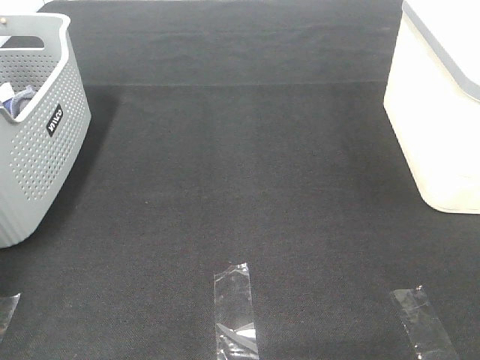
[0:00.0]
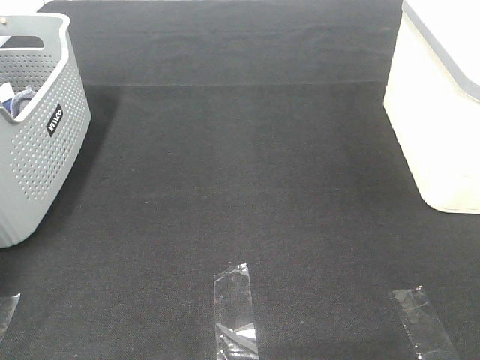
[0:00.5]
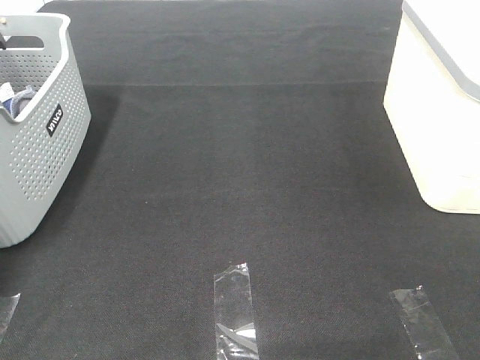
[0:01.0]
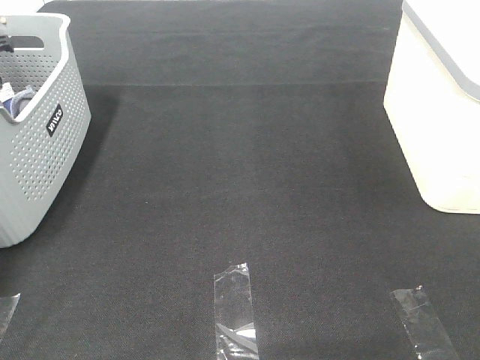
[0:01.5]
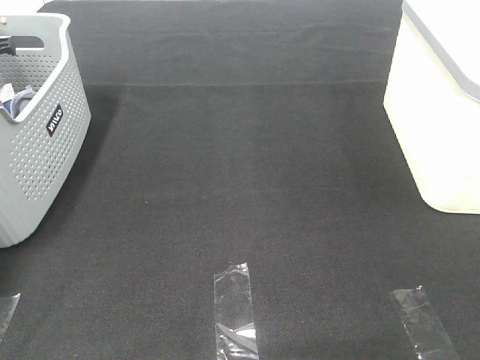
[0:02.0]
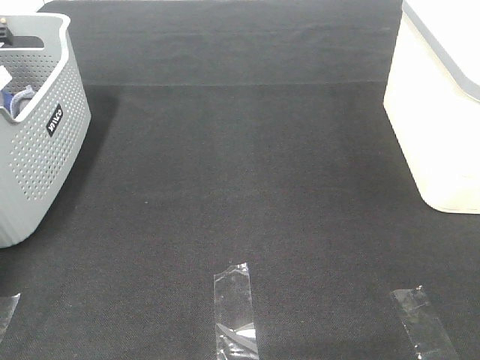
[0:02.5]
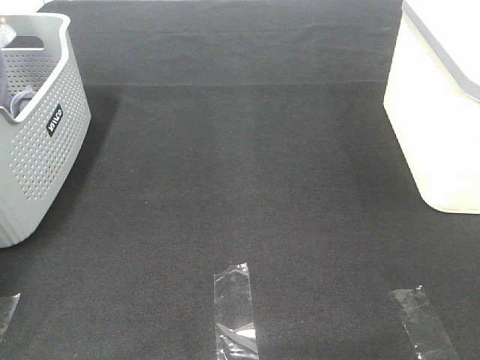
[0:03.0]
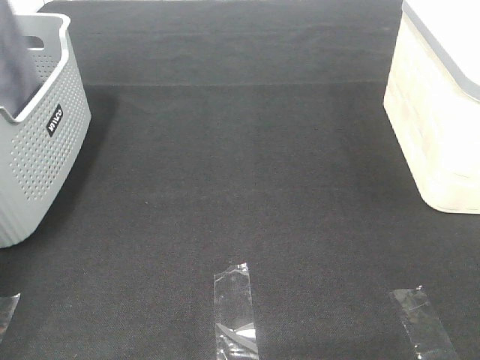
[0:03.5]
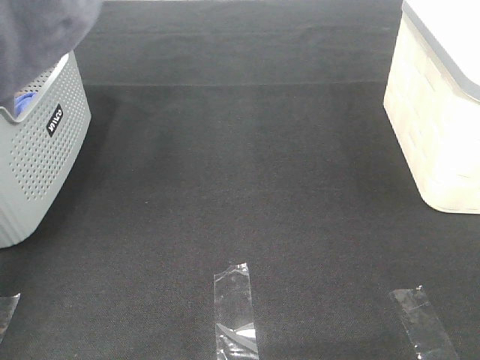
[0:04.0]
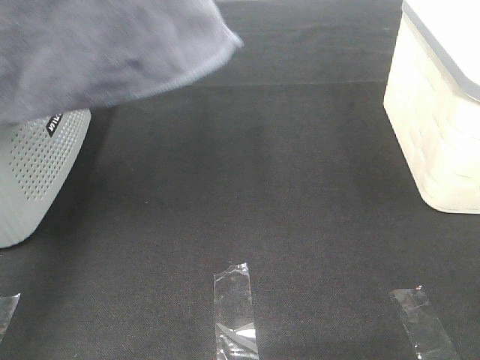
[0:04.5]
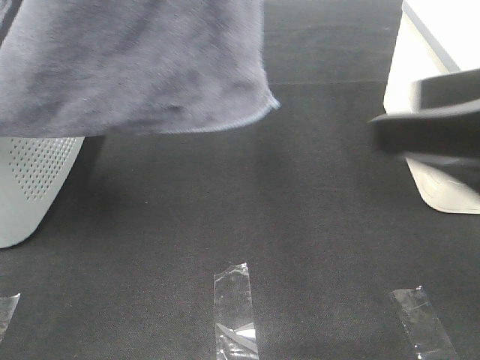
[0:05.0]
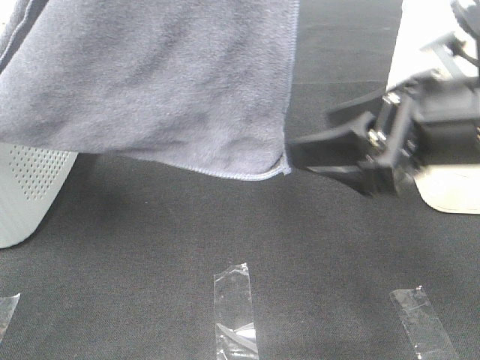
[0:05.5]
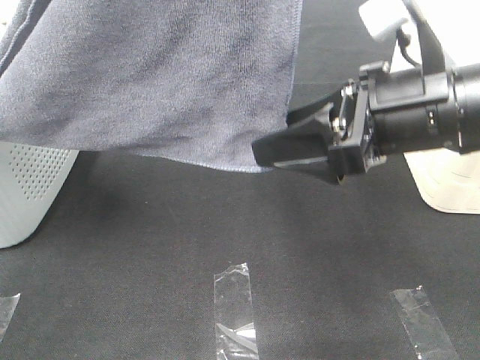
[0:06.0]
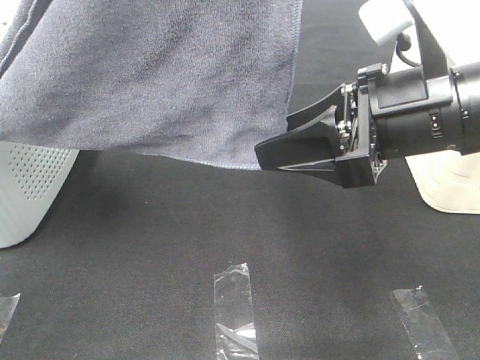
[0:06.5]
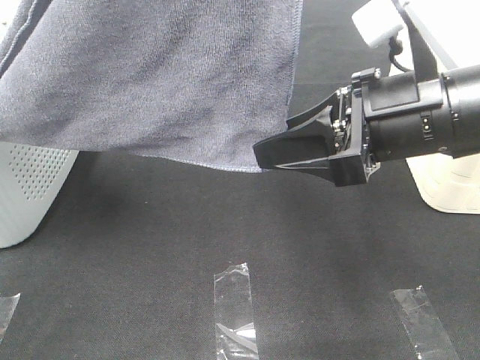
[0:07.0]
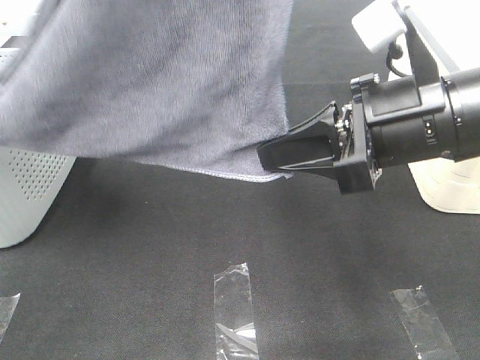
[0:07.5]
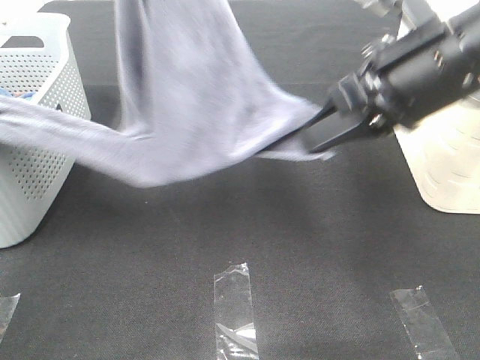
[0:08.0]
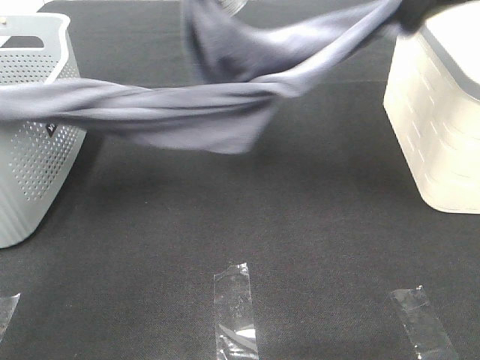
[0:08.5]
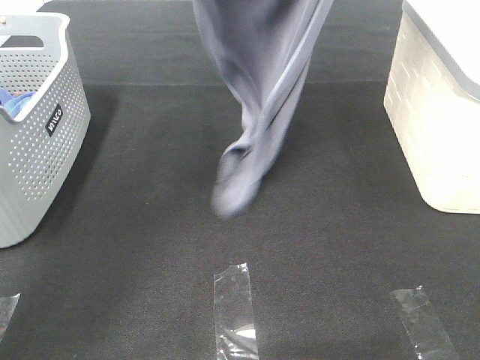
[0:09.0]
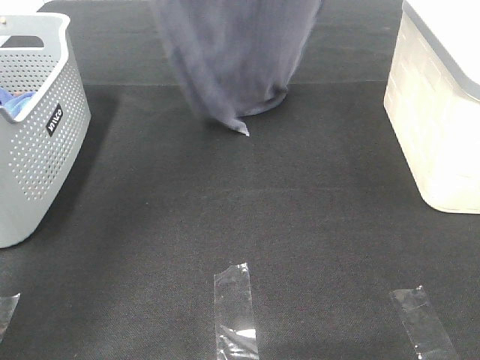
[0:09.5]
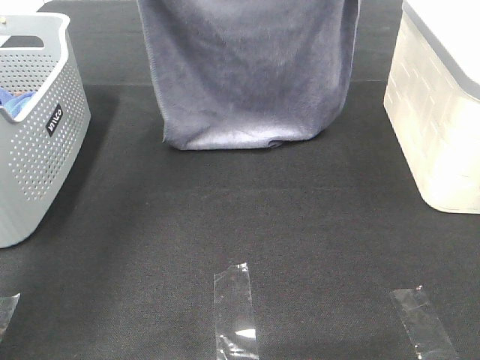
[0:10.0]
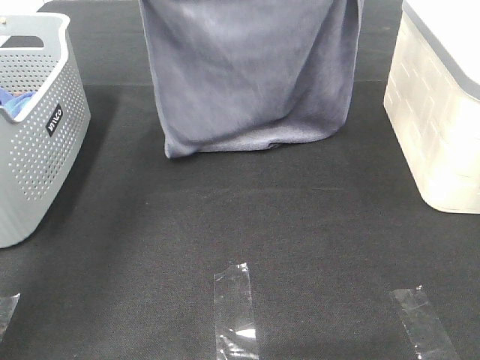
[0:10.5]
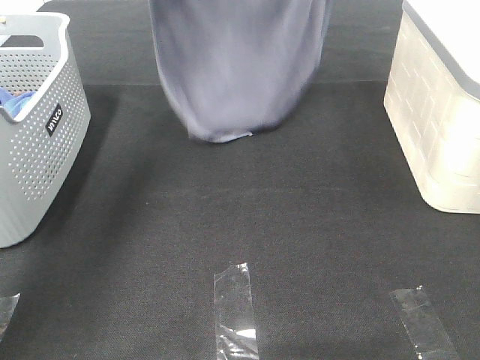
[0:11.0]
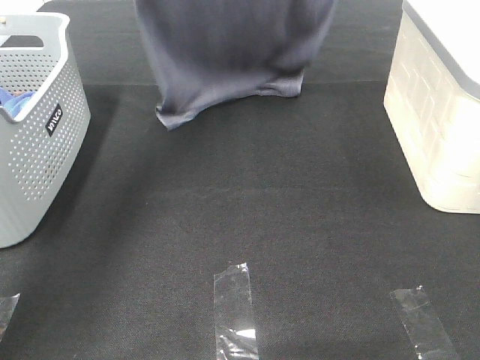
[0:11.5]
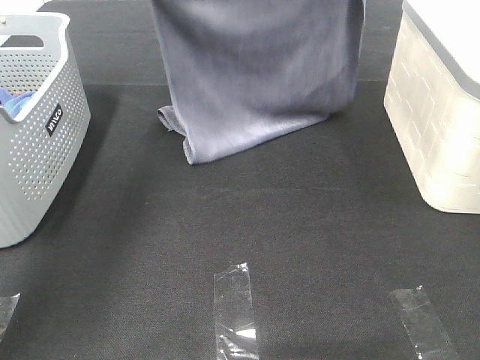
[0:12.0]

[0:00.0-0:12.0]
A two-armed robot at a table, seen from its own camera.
Task of the whole recording: Remove the towel and place it.
Step, 0:02.5 to 0:05.5: Right hand: grab a corner of the grey towel and straighten it.
Step, 0:06.0 to 0:10.5: Left hand: spread the grey towel flat on the table.
Step, 0:06.0 to 0:10.5: Right hand: spread the grey towel flat on the table.
0:02.0 to 0:04.0: The left gripper shifts approximately 40 cm upward and backward.
0:04.0 to 0:06.0: The right gripper shifts roughly 25 cm forward and to the left; the left gripper heads to the right, covering about 20 cm.
0:06.0 to 0:08.0: The right gripper changes place by about 5 cm, and closes up, while the left gripper travels forward and downward by roughly 10 cm.
0:08.0 to 0:10.0: The left gripper moves forward, downward and to the left, about 20 cm; the right gripper goes roughly 20 cm forward and upward.
0:10.0 to 0:12.0: The left gripper goes up and down, approximately 10 cm each way, reversing 2 times. Meanwhile the right gripper reaches about 5 cm upward, then returns.

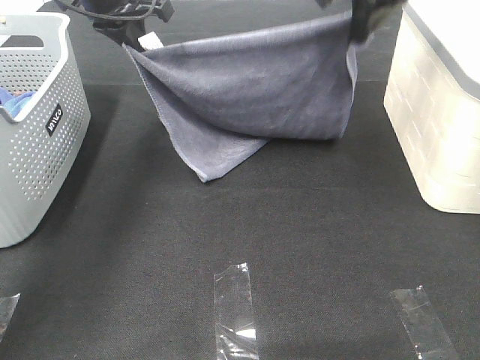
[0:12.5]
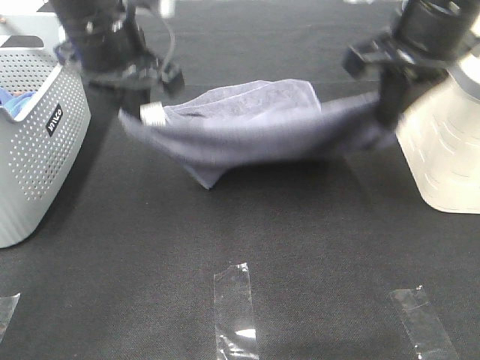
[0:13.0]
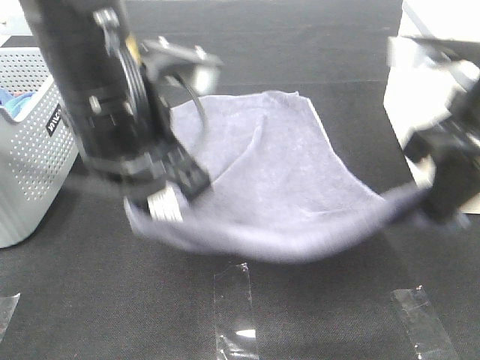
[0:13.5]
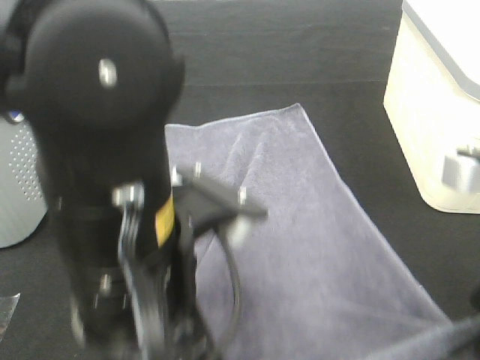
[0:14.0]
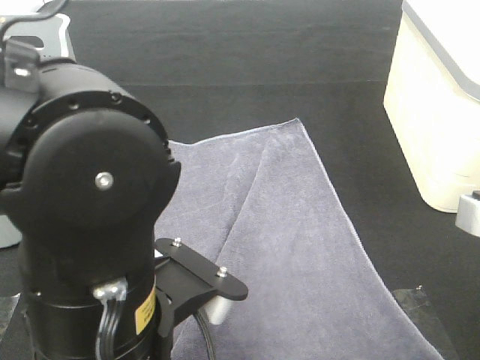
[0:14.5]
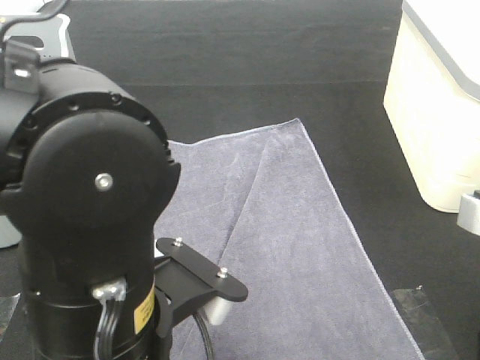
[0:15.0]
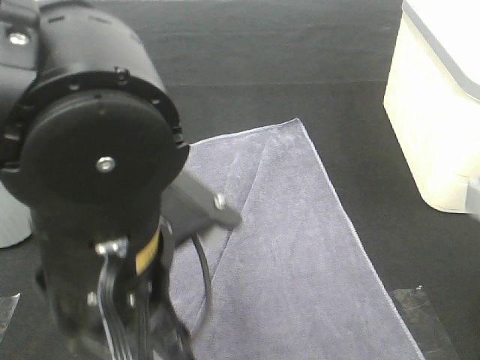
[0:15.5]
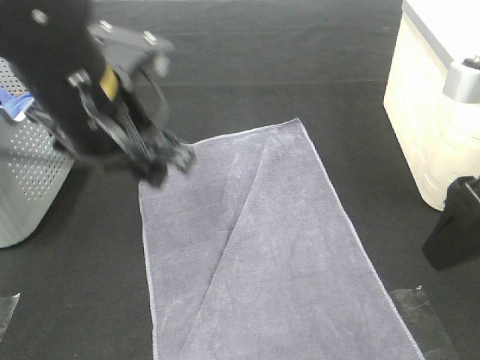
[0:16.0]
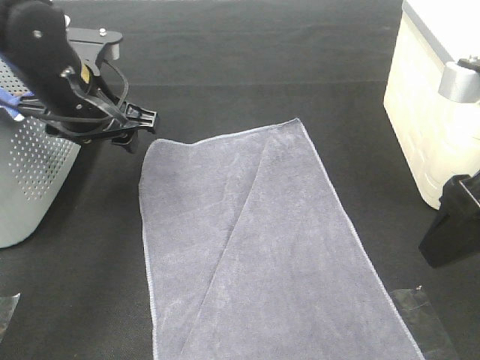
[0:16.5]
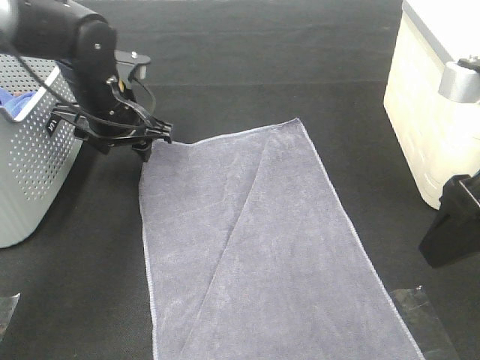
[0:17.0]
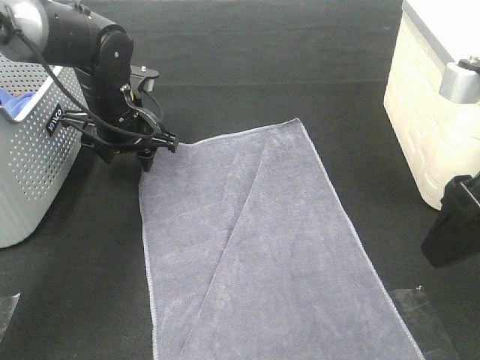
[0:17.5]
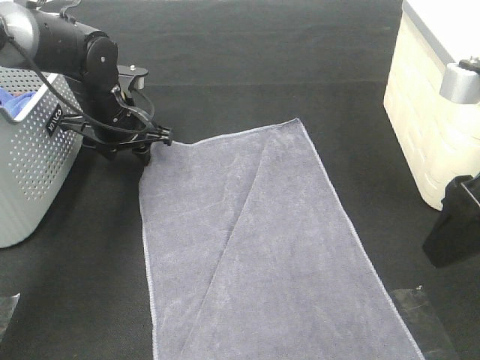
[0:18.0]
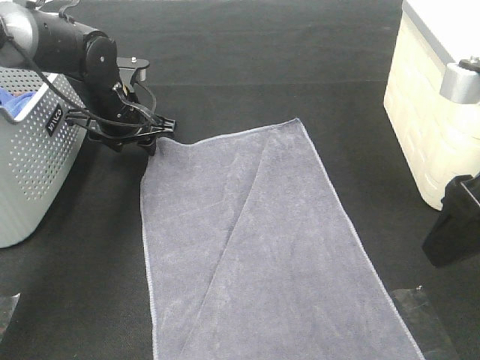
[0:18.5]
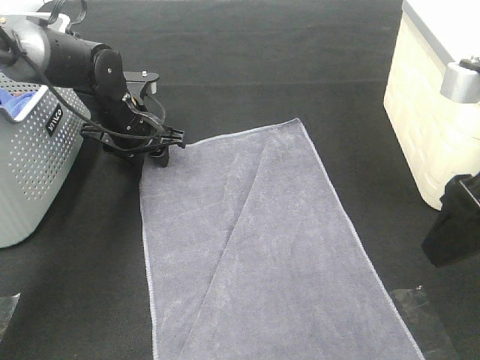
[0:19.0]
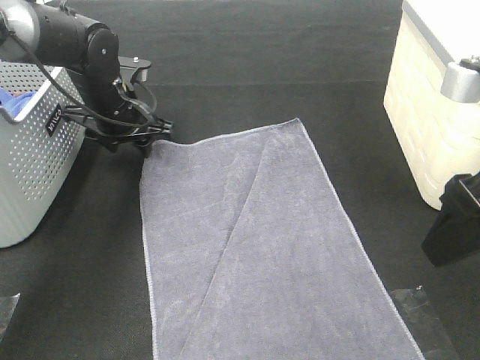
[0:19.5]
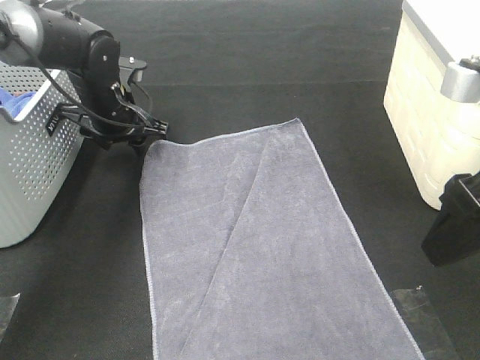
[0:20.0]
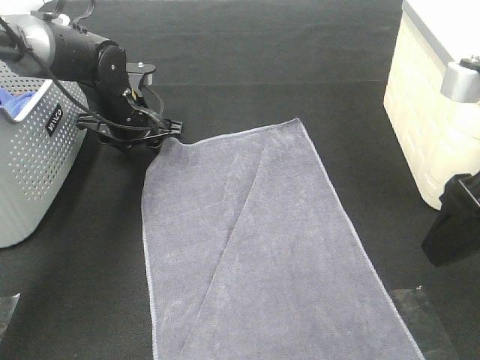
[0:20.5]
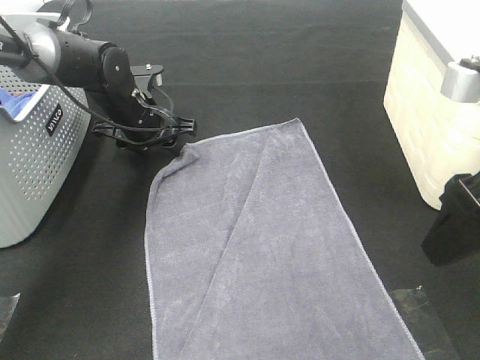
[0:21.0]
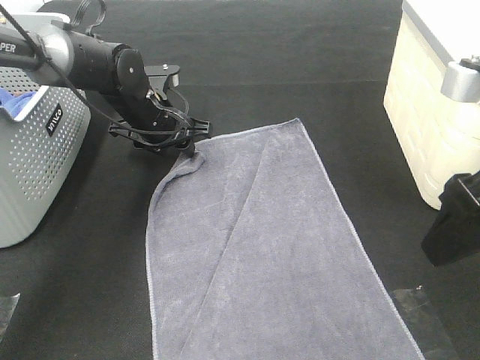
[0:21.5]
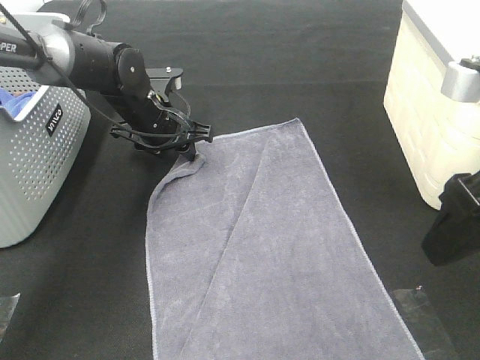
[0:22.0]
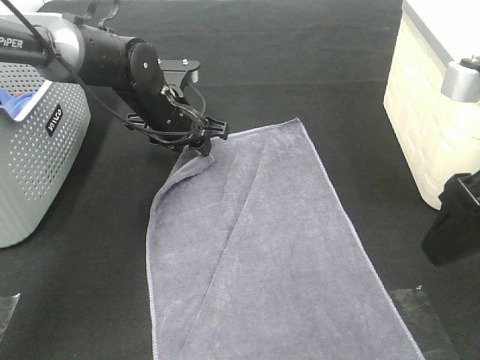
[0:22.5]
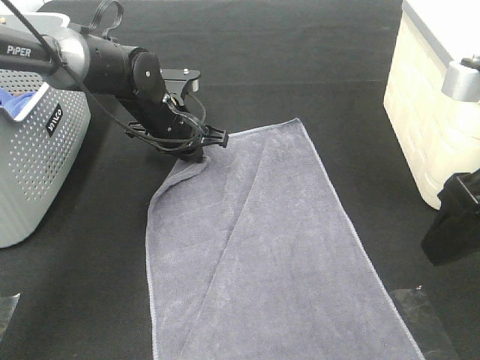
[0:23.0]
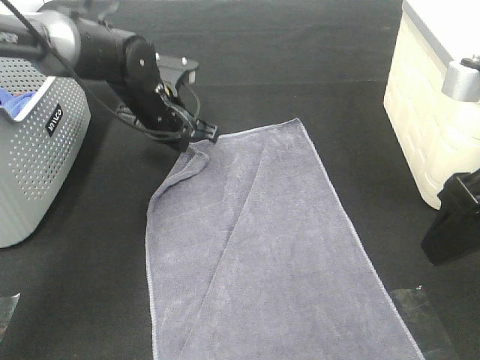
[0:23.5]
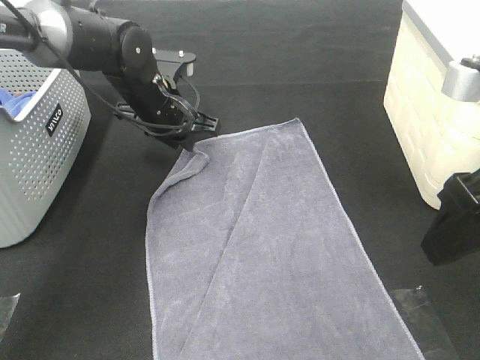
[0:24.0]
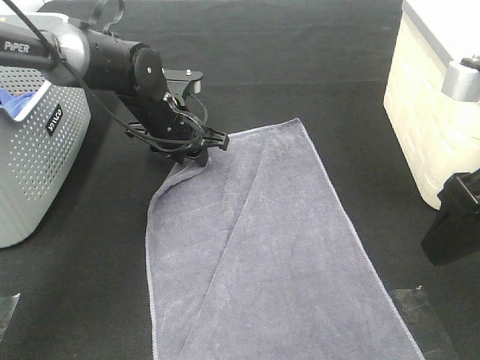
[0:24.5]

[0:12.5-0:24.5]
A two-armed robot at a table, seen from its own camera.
Task of the whole recording: Remove the towel and place it.
Step, 0:12.5 to 0:22.0: Left hand:adjust the gray towel.
Step, 0:12.5 to 0:22.0: Right hand:adjust the gray towel.
0:12.5 to 0:14.5: The two grippers go roughly 35 cm backward.
0:14.5 to 0:16.5: The left gripper shifts some 30 cm forward and to the left, and opens. Meanwhile the right gripper is displaced forward by about 5 cm, and opens its fingers.
0:16.5 to 0:18.5: The left gripper shifts roughly 10 cm forward and downward.
0:18.5 to 0:20.5: The grippers stay close to where they were, moving slightly.
0:20.5 to 0:22.5: The left gripper heads to the right, covering some 5 cm.
0:22.5 to 0:24.5: The left gripper closes, then reopens.

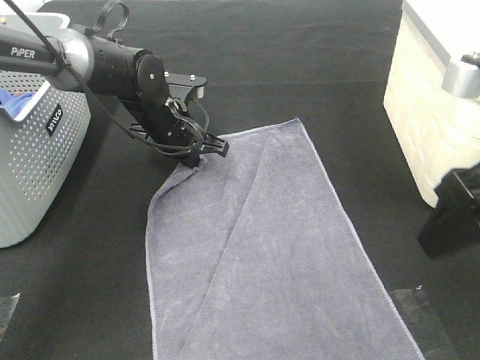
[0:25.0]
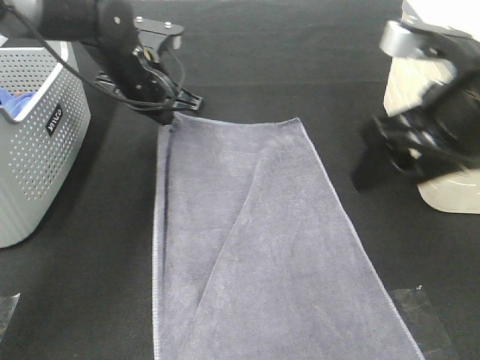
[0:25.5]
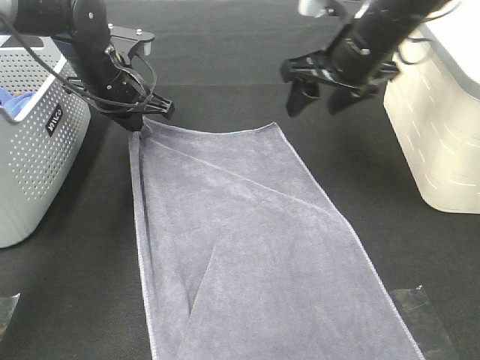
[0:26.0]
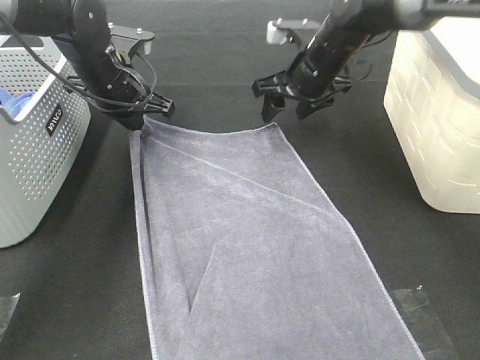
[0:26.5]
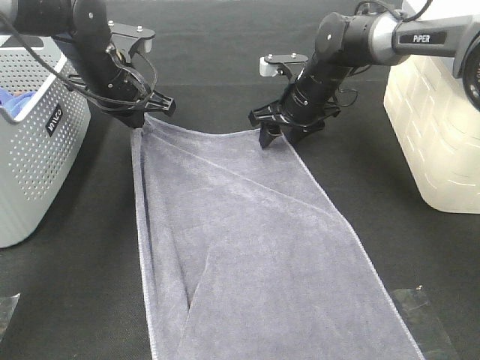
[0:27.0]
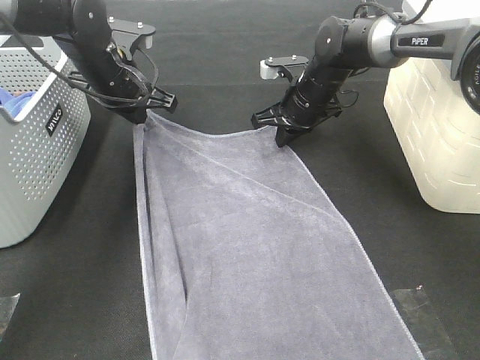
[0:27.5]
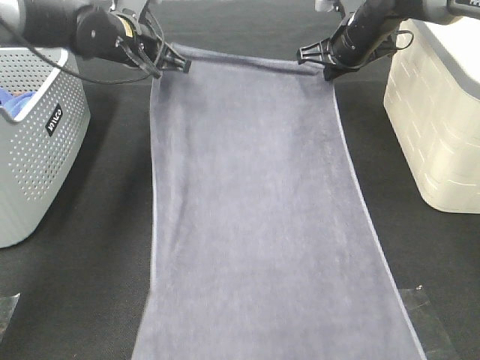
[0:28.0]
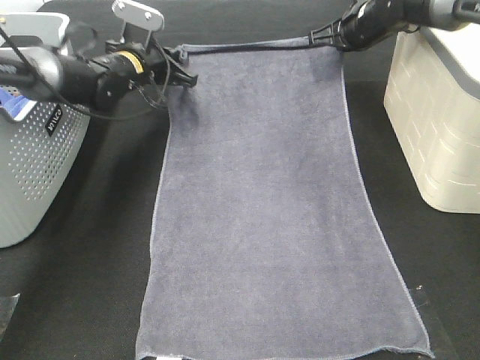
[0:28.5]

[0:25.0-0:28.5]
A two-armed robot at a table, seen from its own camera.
Task of the whole recording: Remove the towel and place it.
0:25.0 to 0:27.0: The right gripper shifts about 35 cm forward and downward; the left gripper is displaced upward and to the left by approximately 10 cm.
0:27.0 to 0:28.5: The left gripper travels forward and downward by about 10 cm, while the right gripper heads to the right, upward and forward, covering some 15 cm, and closes its fingers.
